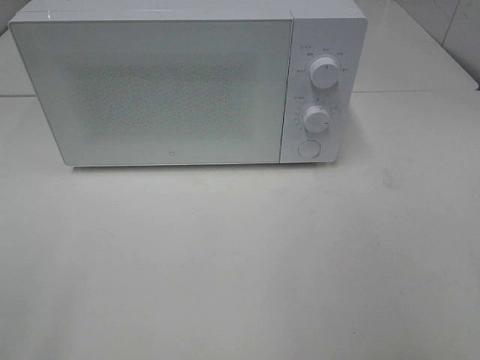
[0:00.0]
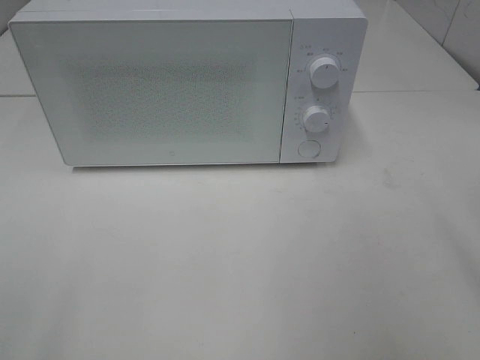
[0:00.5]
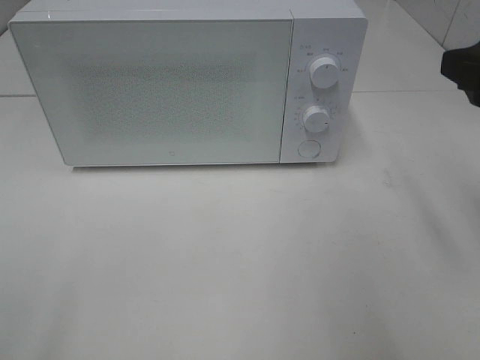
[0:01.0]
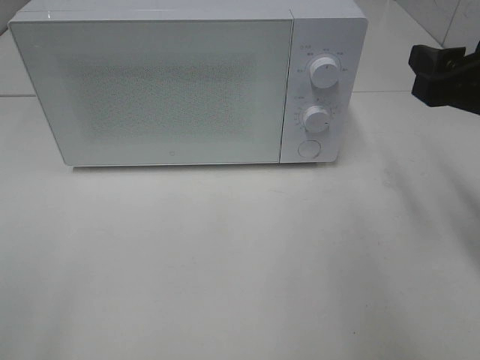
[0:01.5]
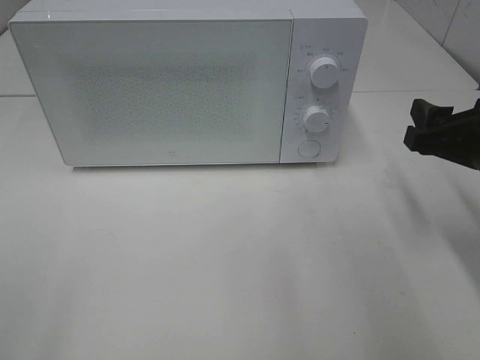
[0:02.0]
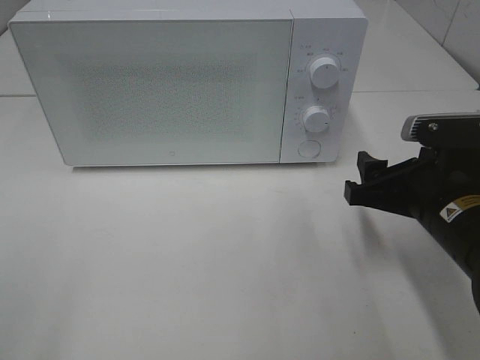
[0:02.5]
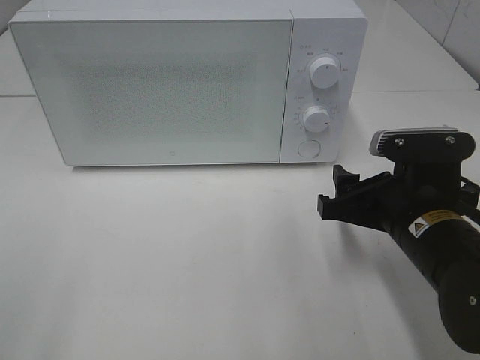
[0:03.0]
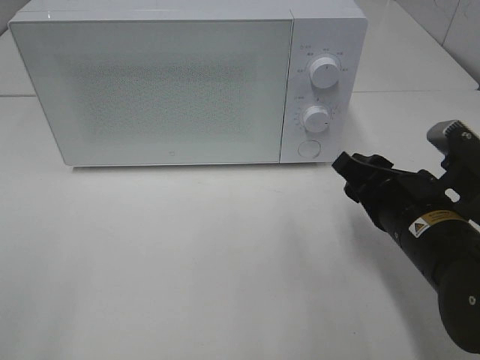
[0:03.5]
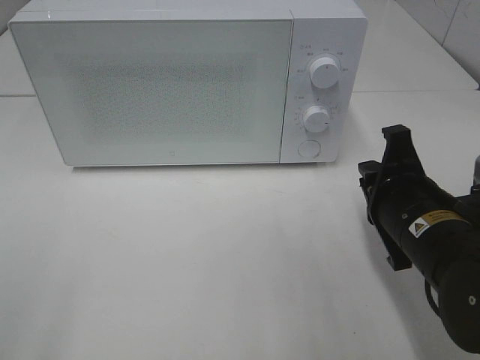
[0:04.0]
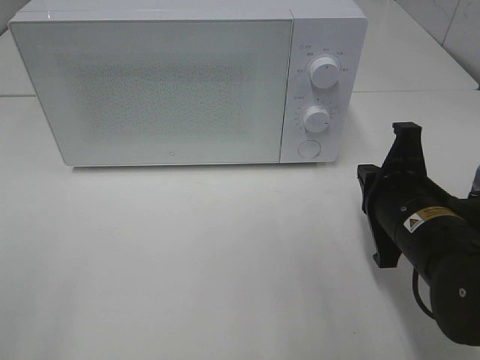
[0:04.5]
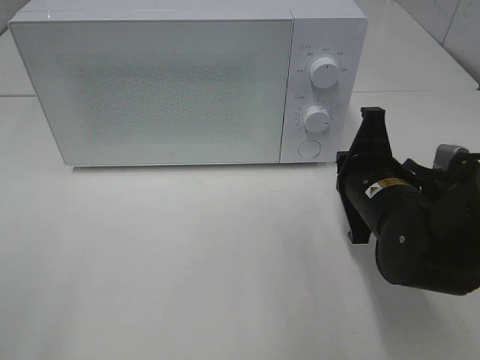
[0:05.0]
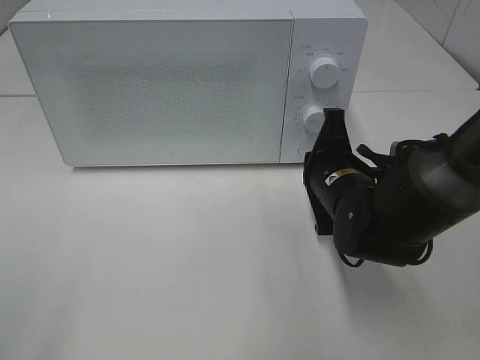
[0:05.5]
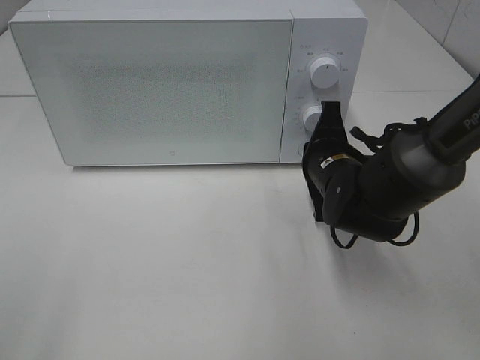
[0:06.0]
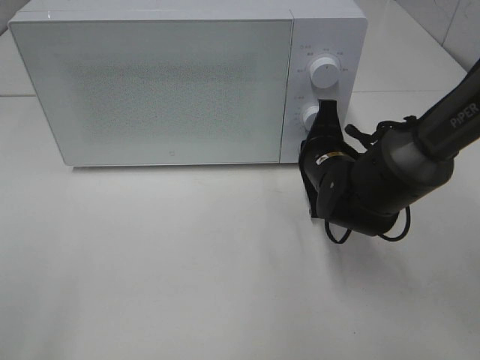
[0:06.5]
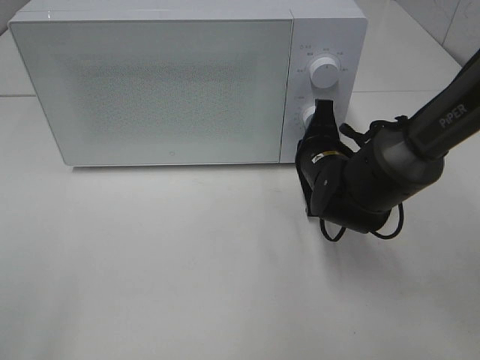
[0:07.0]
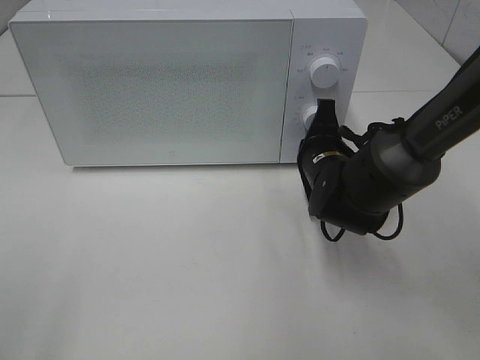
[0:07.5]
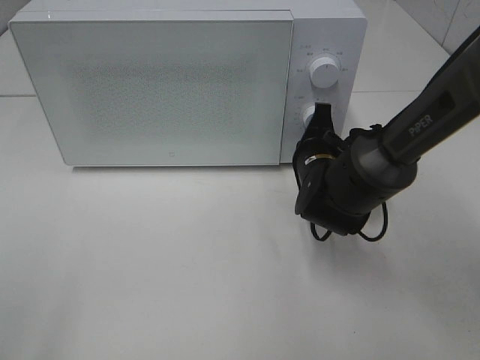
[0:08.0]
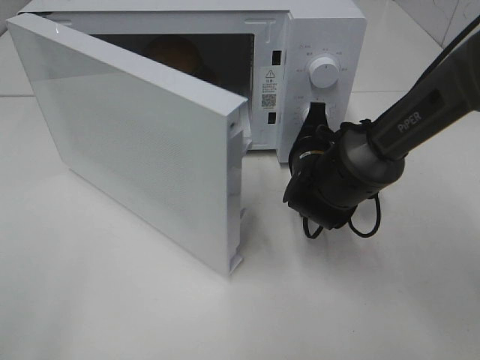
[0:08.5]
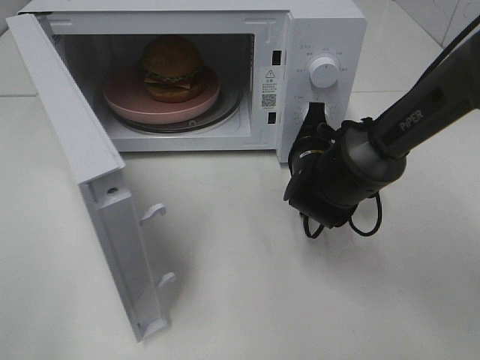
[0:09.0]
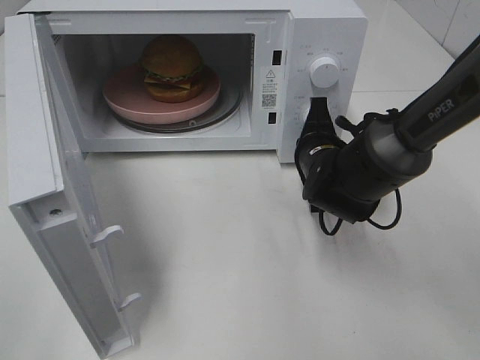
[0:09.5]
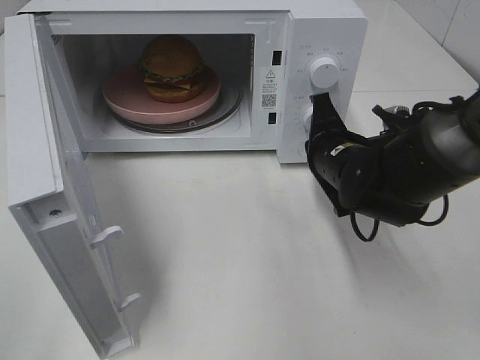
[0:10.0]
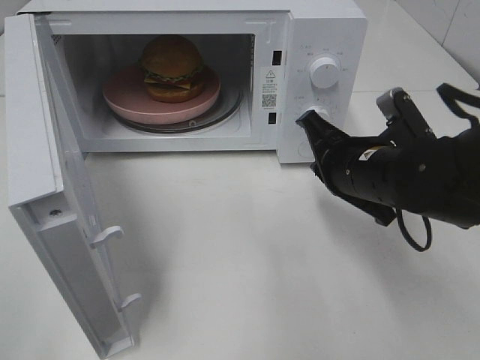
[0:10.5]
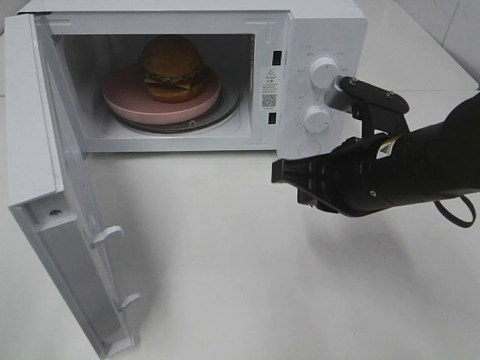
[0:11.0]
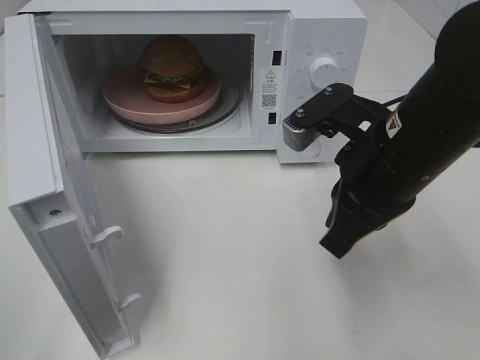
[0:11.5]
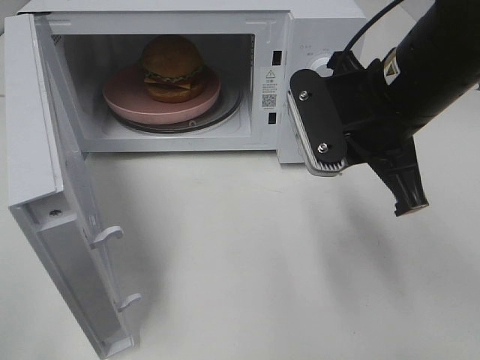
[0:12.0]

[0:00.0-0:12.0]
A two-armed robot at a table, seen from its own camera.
Task of the whole recording: Heat the burger.
Step, 0:00.0 to 0:09.5: Right hand: press the switch.
0:00.0 to 0:02.0: The right gripper heads forward and downward, covering some 25 cm.
0:02.0 to 0:04.0: The right gripper is displaced to the left by approximately 10 cm, and closes its fingers.
0:04.0 to 0:06.0: The right gripper heads forward, covering approximately 10 cm.
0:06.0 to 0:08.0: The grippers stay close to where they were, moving slightly.
0:10.0 to 0:12.0: The right gripper is displaced upward and backward by roughly 15 cm.

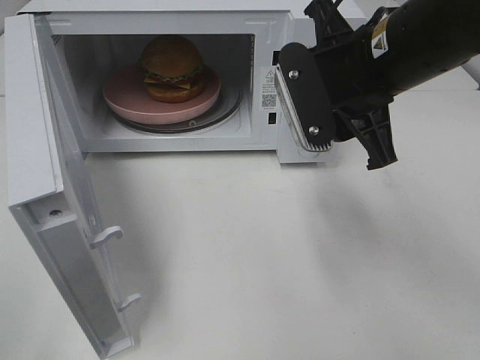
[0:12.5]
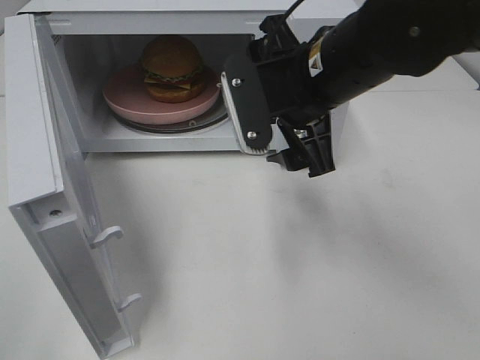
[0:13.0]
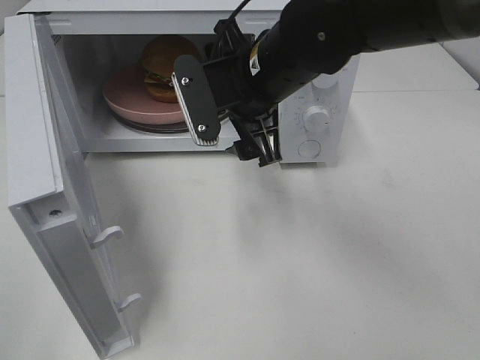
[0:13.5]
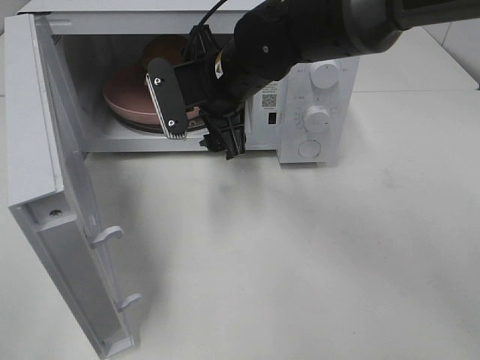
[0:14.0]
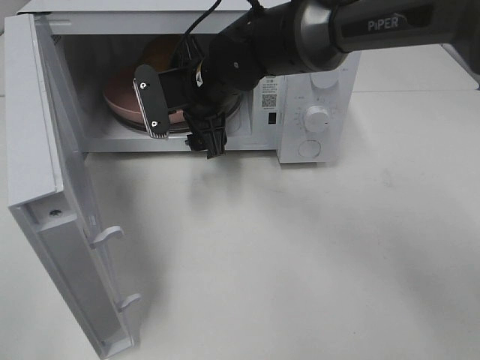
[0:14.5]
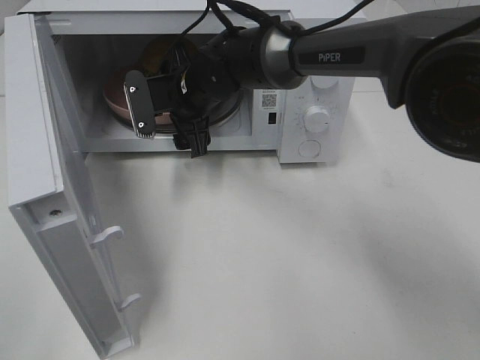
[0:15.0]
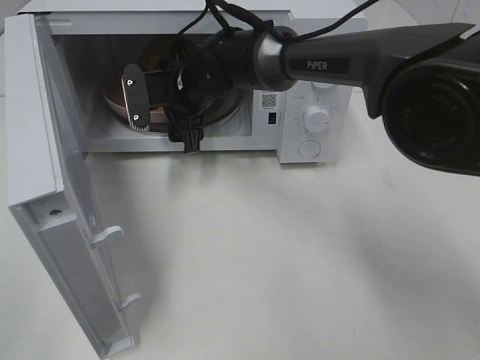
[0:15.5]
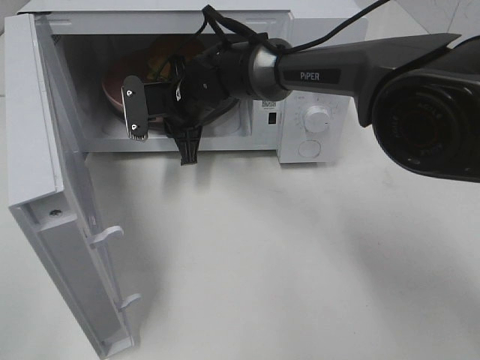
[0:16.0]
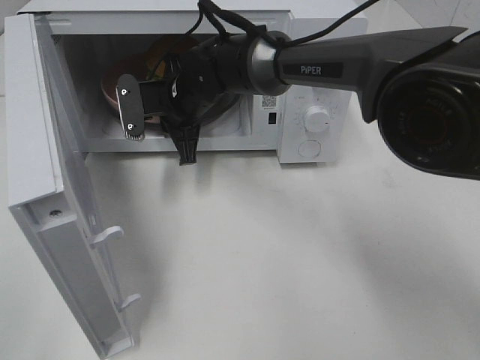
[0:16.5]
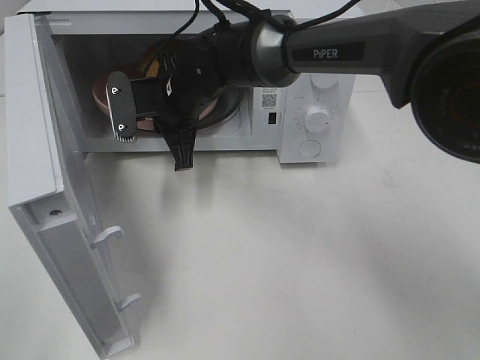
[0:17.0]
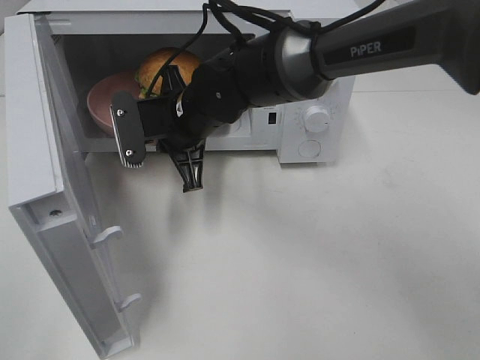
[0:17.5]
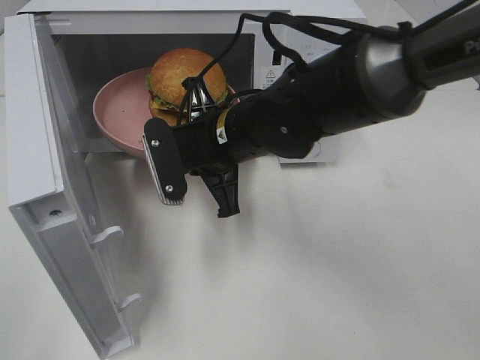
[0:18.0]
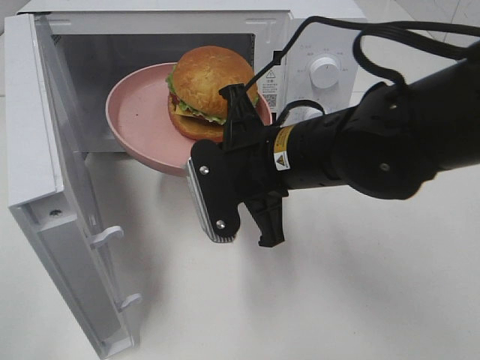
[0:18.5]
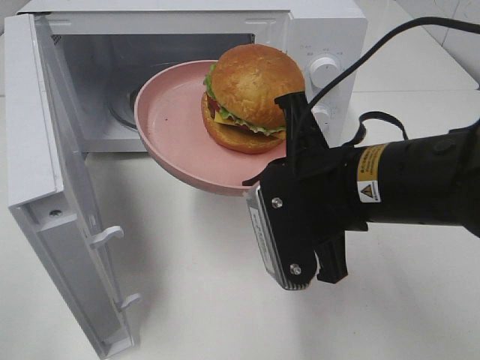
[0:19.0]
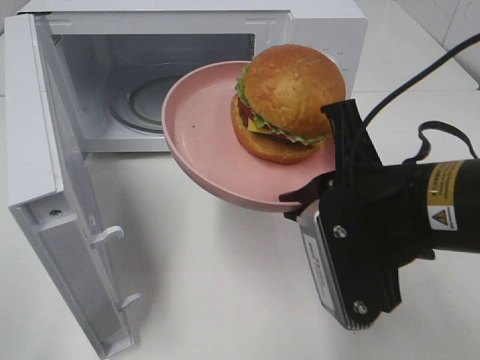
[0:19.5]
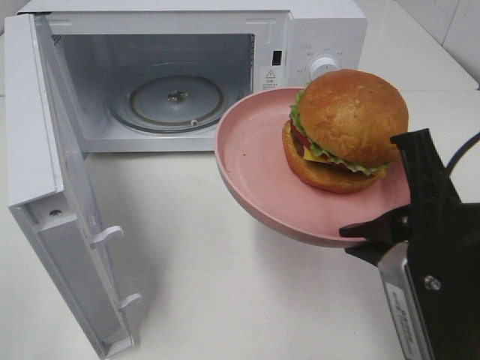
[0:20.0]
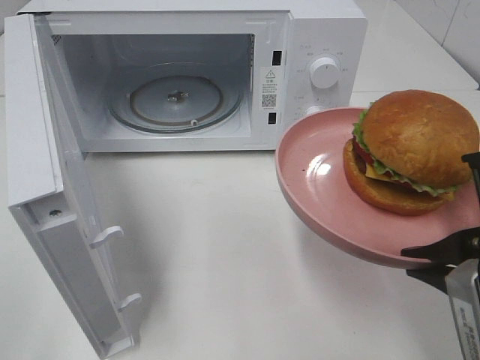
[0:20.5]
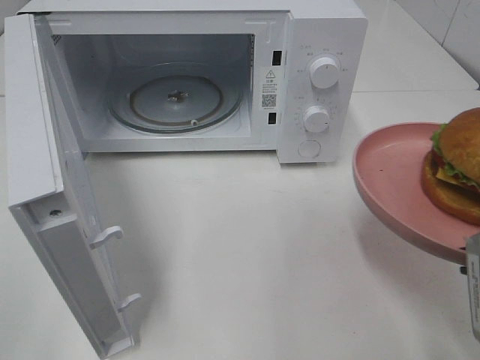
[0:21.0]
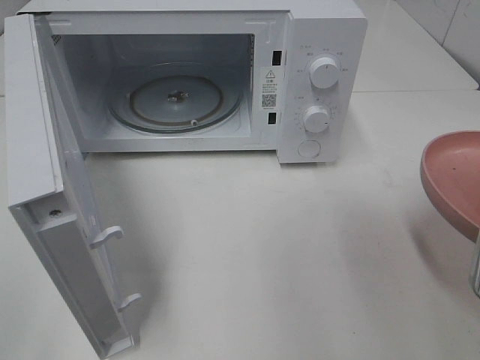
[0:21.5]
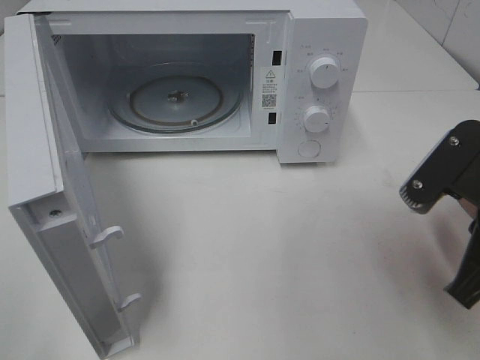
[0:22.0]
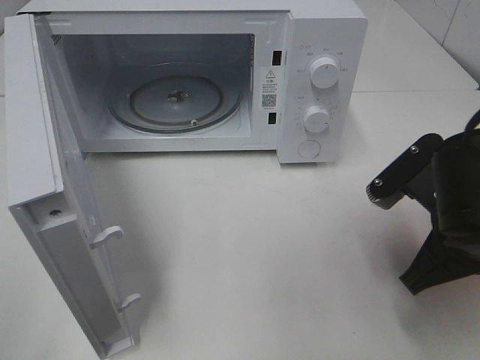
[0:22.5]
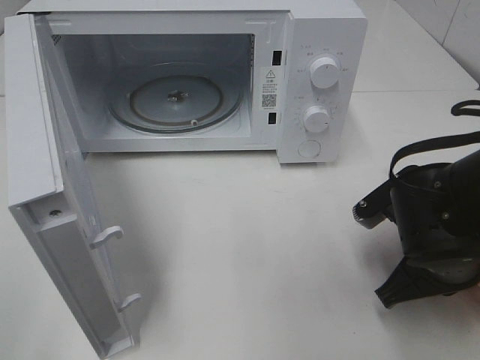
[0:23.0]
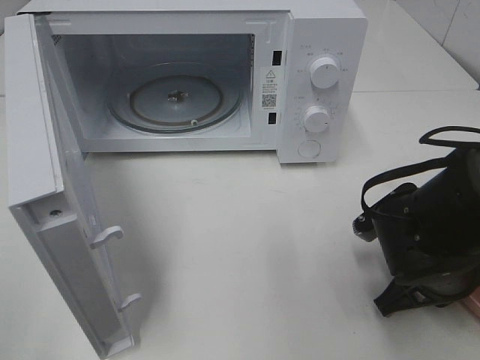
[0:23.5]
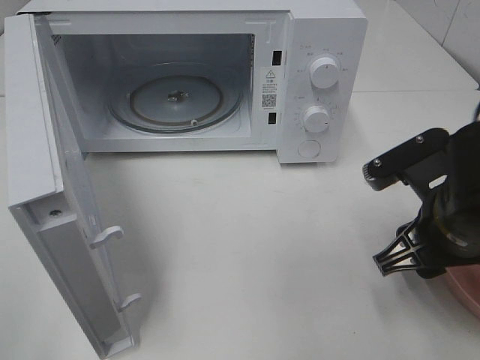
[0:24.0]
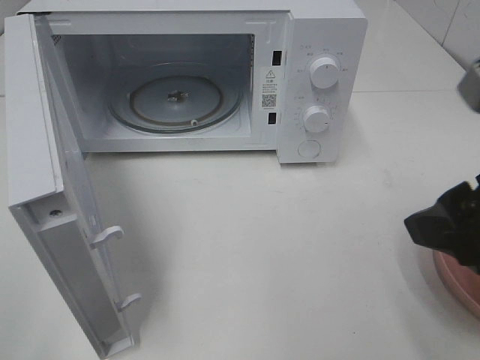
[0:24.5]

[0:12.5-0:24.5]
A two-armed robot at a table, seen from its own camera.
Task of the whole recording: Heat the burger.
Step, 0:12.5 to 0:16.5: Right hand: grab the plate with the hamburger.
Step, 0:17.0 to 0:23.5: Right hand: place the plate on the table.
0:12.5 to 0:14.5: The right gripper is displaced to the left, forward and downward by approximately 20 cm.
0:14.5 to 0:16.5: The right gripper shifts by about 5 cm, and closes its fingers.
0:16.5 to 0:18.5: The right gripper moves backward and to the right, about 20 cm.
0:18.5 to 0:20.5: The right gripper is displaced to the right and backward by some 20 cm.
0:20.5 to 0:22.5: The right gripper travels forward and downward by roughly 10 cm.
0:22.5 to 0:24.5: The right gripper shifts about 15 cm upward and backward, and opens its fingers.

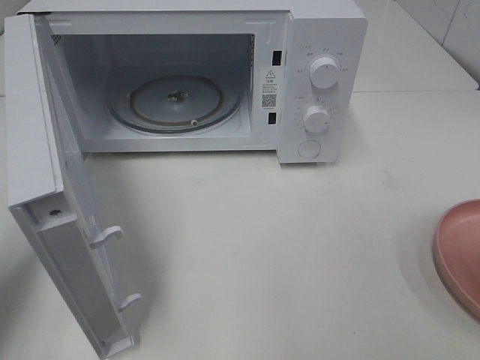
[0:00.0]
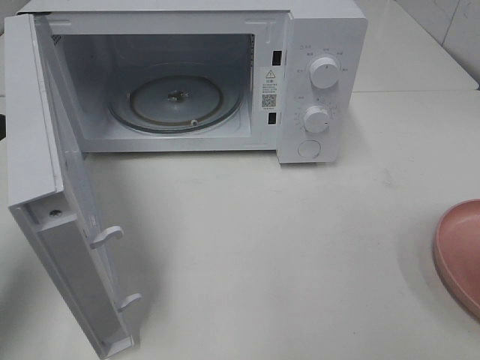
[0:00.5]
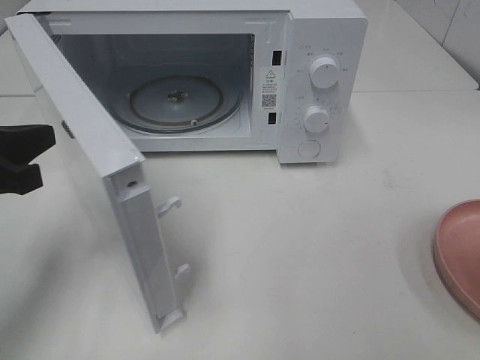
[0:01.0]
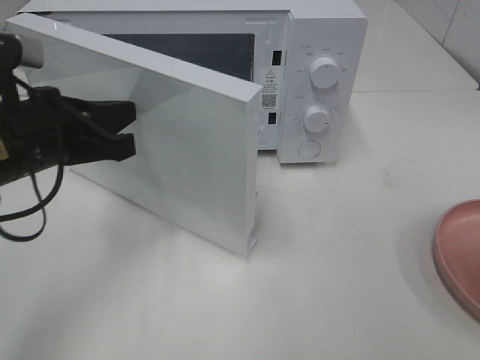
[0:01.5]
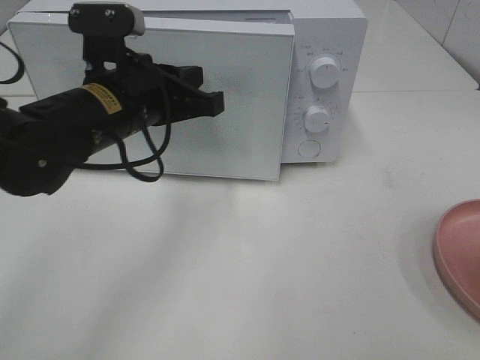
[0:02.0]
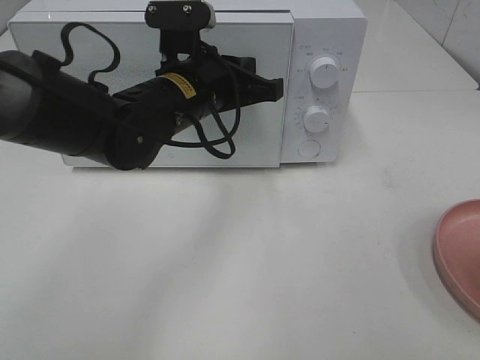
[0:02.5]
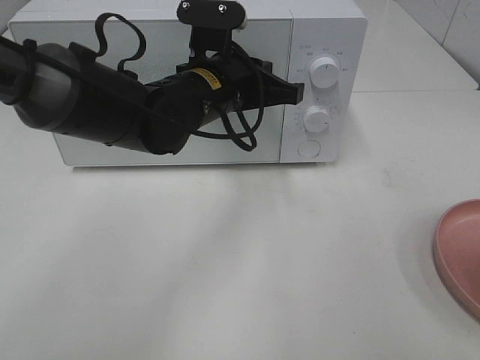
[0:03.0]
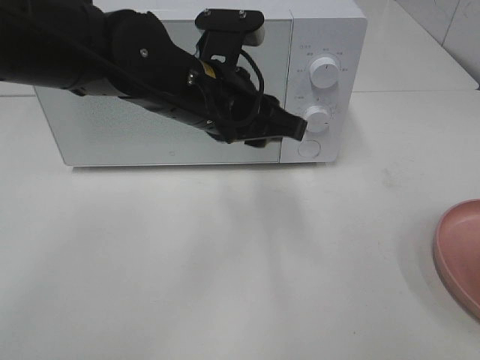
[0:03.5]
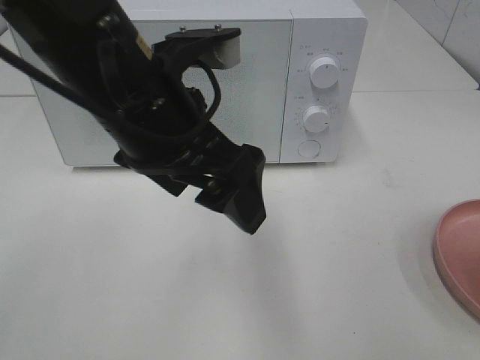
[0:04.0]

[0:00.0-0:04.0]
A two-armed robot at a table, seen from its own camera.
Task of the whole recording: Heat the burger.
Step, 0:00.0 to 0:03.0: Left hand: close the microwave door.
0:00.0 to 0:02.0: The left gripper goes approximately 25 cm to the right and forward.
0:02.0 to 0:04.0: The left gripper heads backward and upward, covering roughly 10 cm, and opens.
